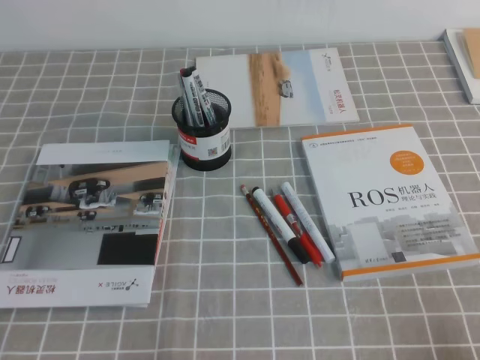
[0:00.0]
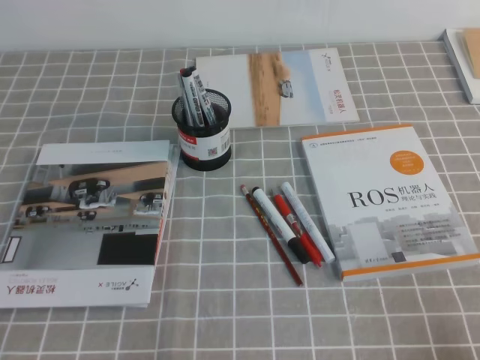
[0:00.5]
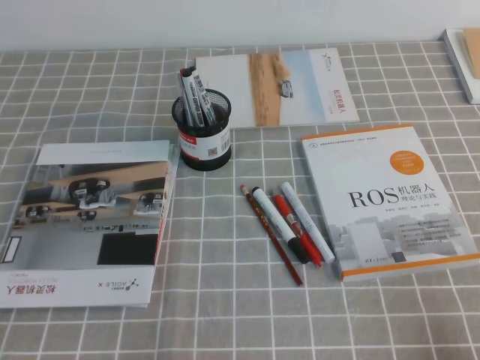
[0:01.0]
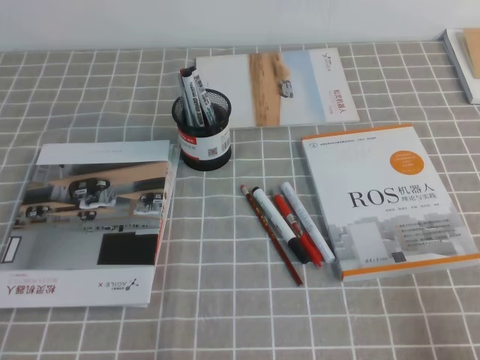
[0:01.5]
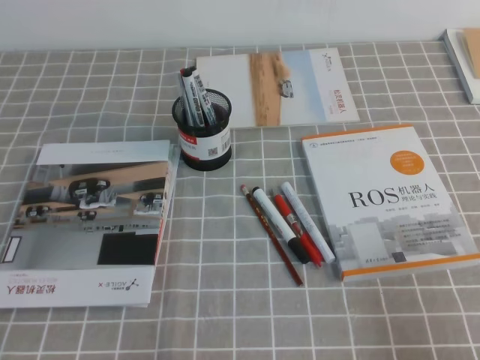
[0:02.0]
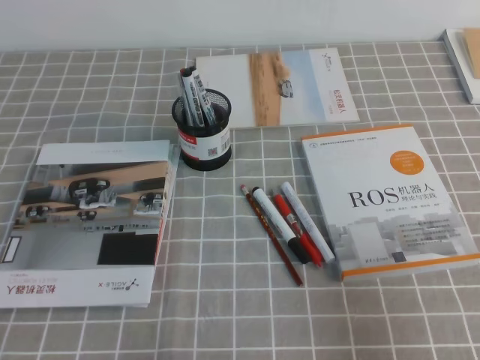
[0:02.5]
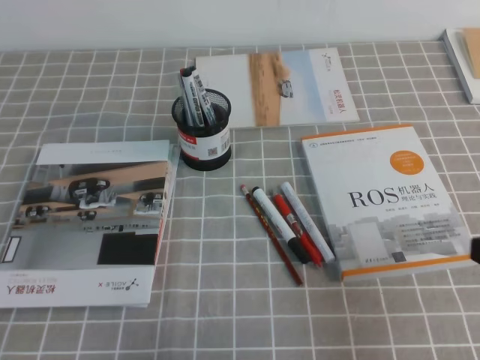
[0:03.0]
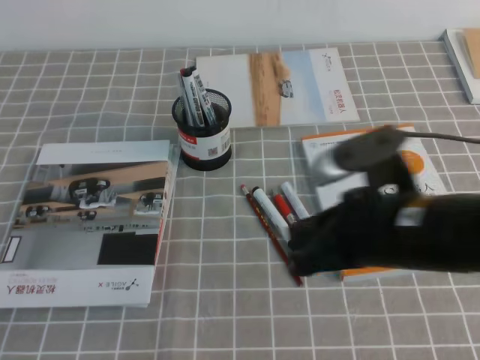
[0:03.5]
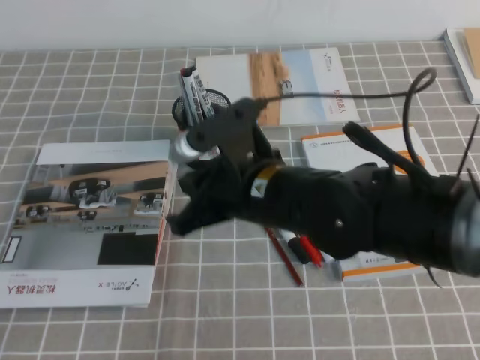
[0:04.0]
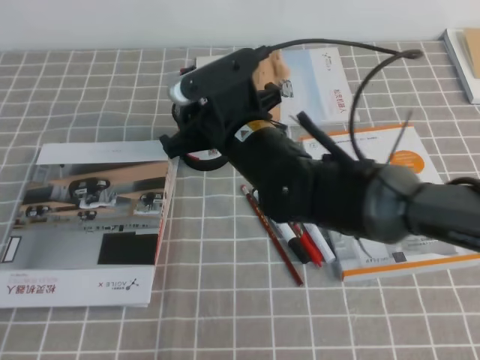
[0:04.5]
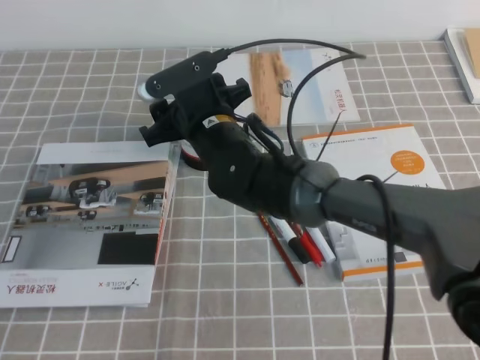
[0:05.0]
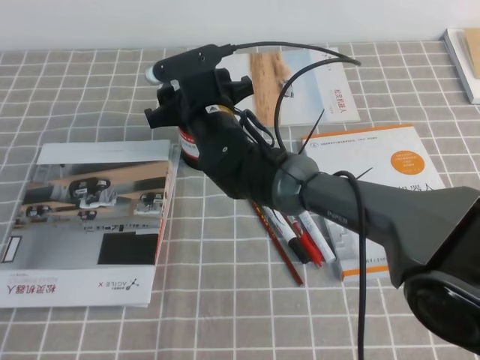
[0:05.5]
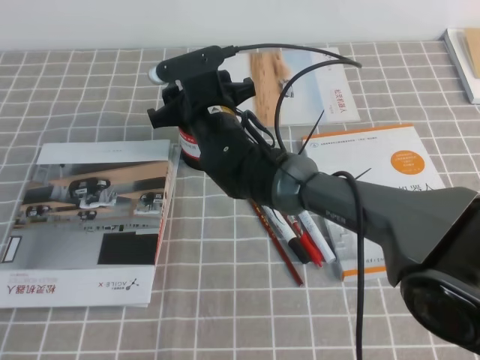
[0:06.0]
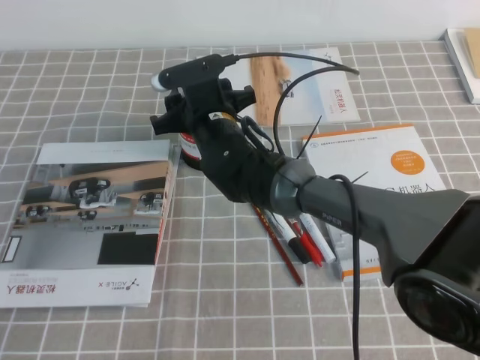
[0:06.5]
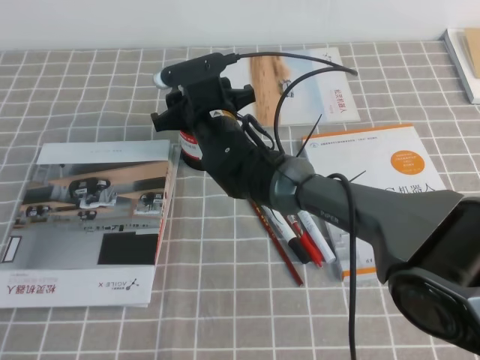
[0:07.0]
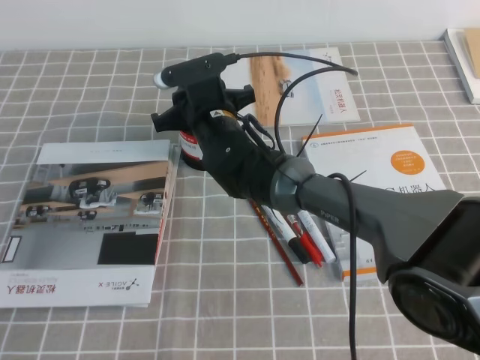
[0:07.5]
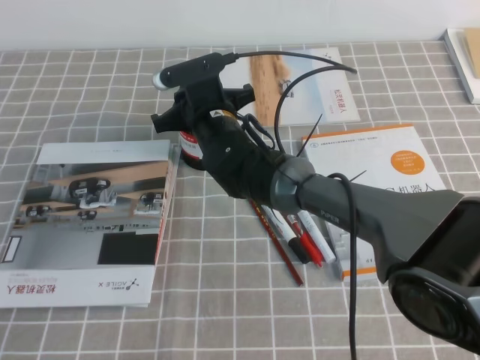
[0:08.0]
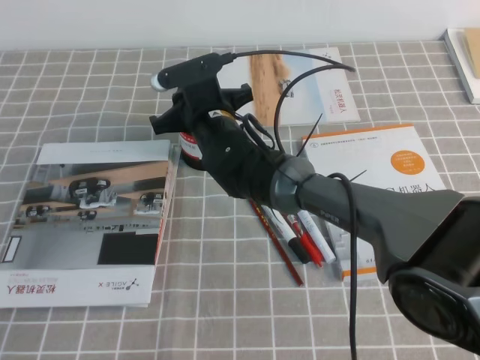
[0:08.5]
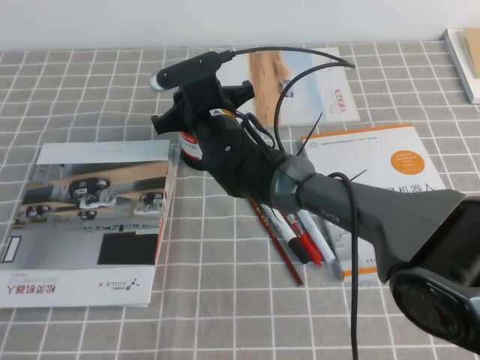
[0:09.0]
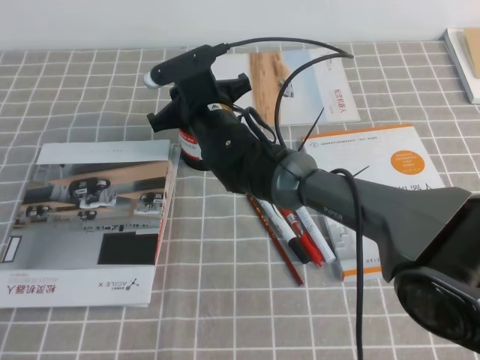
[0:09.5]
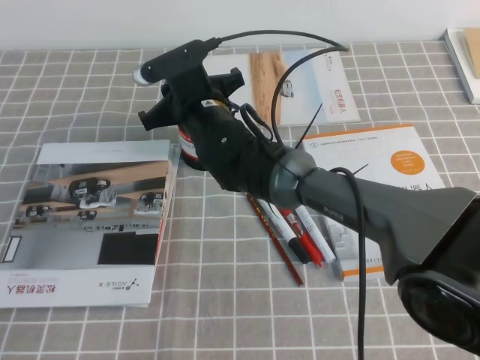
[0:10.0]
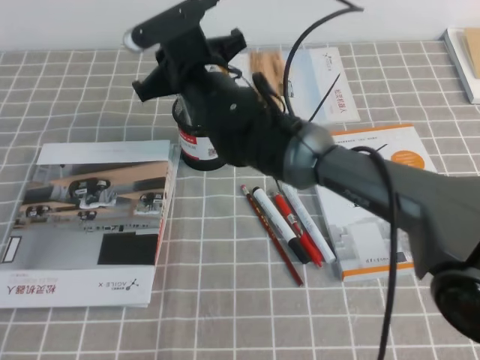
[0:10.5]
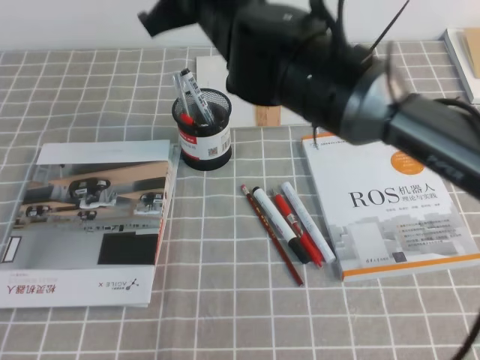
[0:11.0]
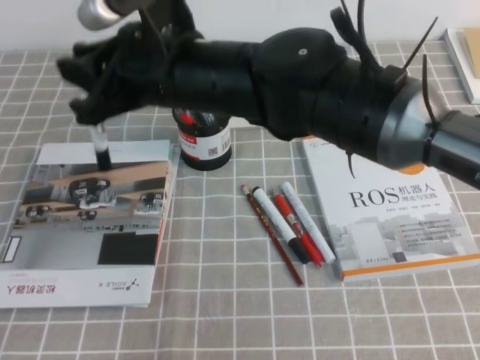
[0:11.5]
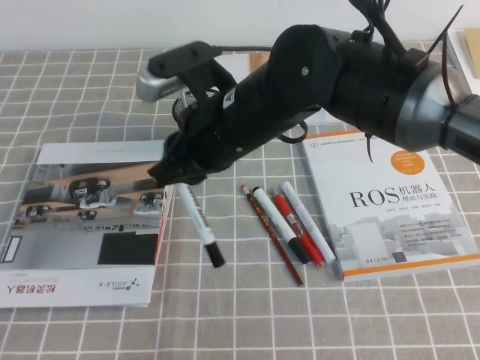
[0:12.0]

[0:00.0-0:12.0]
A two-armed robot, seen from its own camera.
0:02.0 to 0:04.0: The right gripper moves to the left and forward, roughly 35 cm.
0:04.0 to 0:06.0: The right gripper is displaced forward and to the left by some 20 cm, and opens up.
0:06.0 to 0:08.0: The right gripper closes.
0:08.0 to 0:10.0: The grippers stay close to where they were, moving slightly.
0:10.0 to 0:12.0: The right gripper shifts some 15 cm backward, upward and to the right.

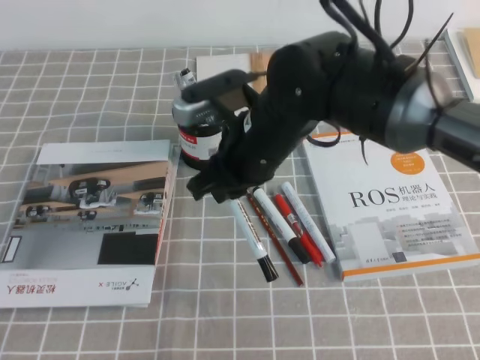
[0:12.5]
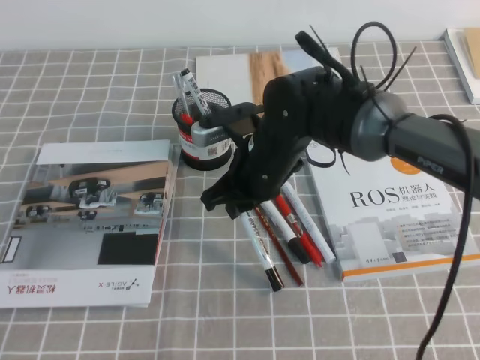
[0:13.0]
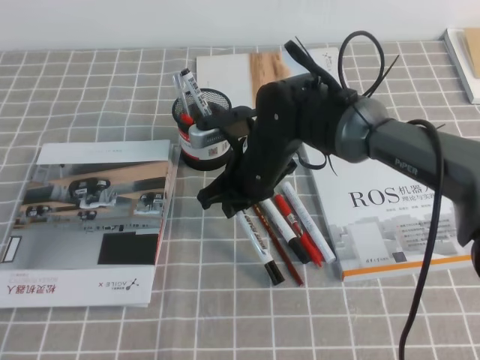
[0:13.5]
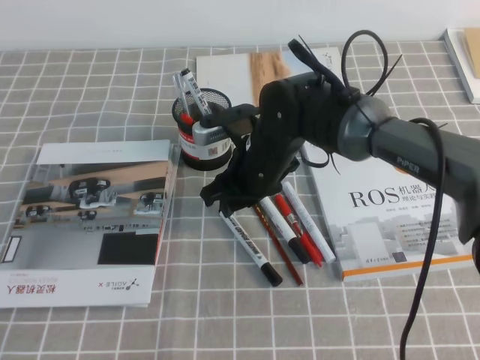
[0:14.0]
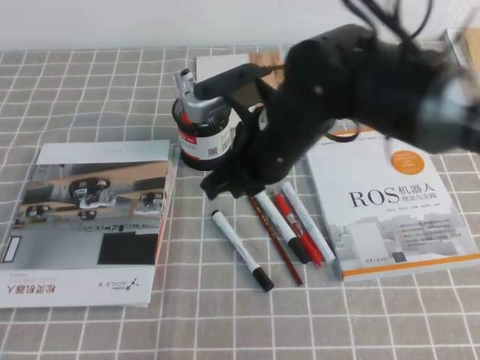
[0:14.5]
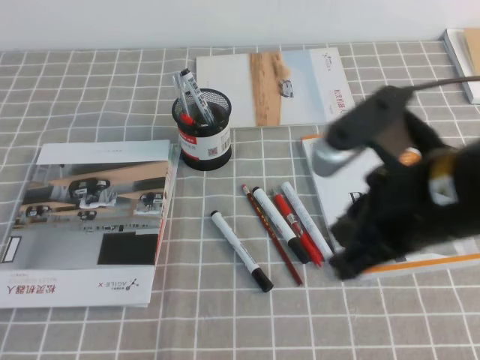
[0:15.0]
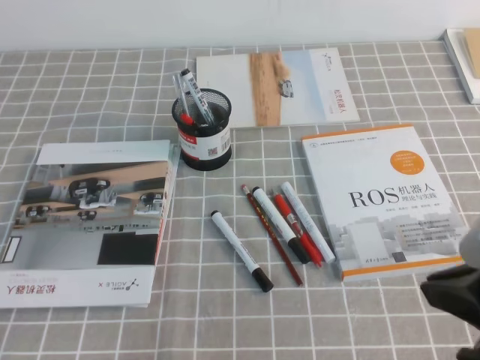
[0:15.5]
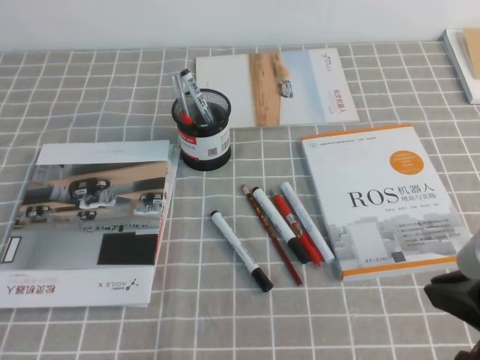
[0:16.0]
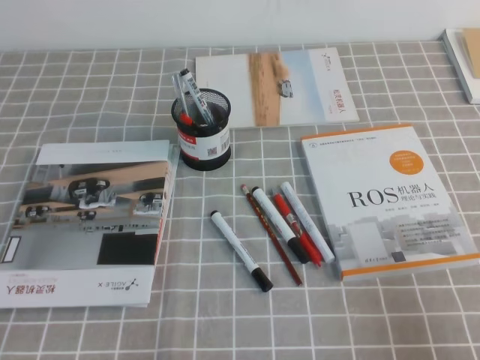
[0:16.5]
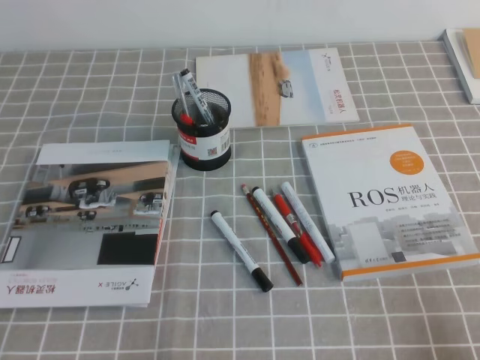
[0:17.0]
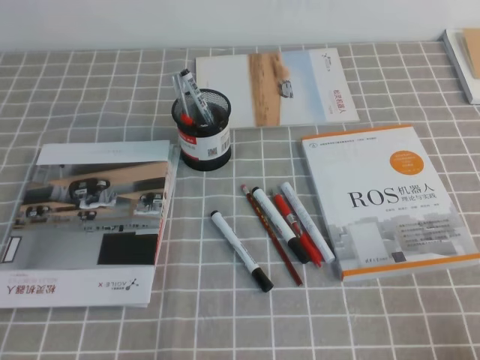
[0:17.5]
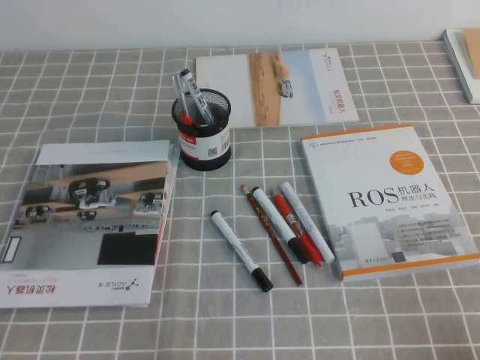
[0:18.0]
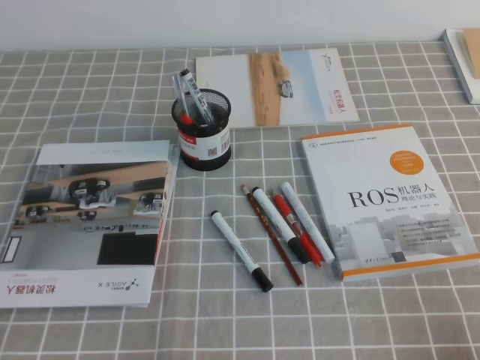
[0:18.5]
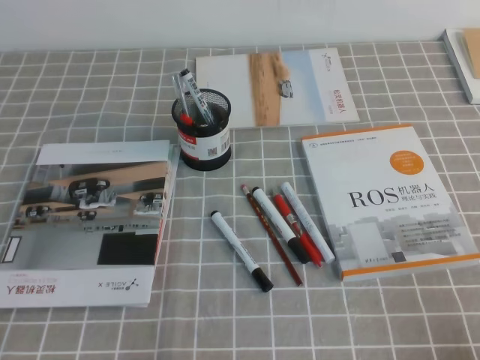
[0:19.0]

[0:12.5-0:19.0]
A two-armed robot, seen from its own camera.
Step, 0:12.5 to 0:19.0: Pick up the pen from the pen holder.
0:12.5 to 0:14.5: The right gripper goes downward and returns, approximately 10 cm each way, and opens and closes again.
0:14.5 to 0:17.0: The right gripper travels to the right and backward by approximately 35 cm.

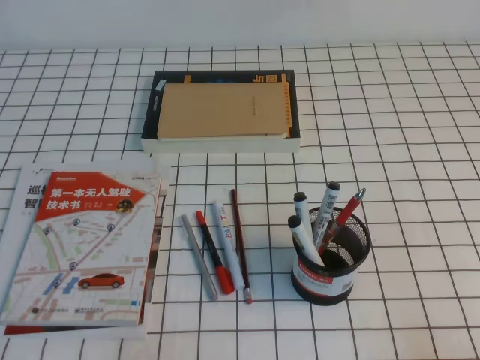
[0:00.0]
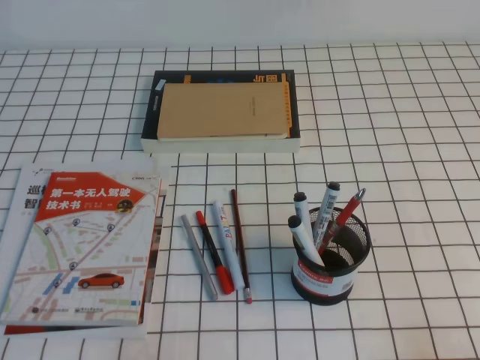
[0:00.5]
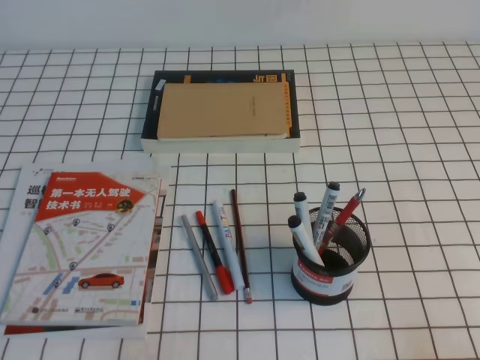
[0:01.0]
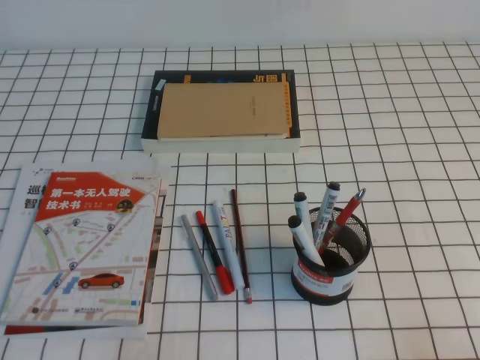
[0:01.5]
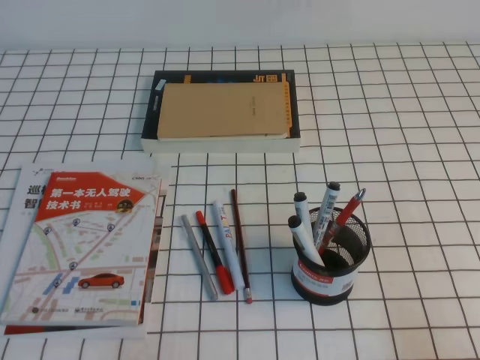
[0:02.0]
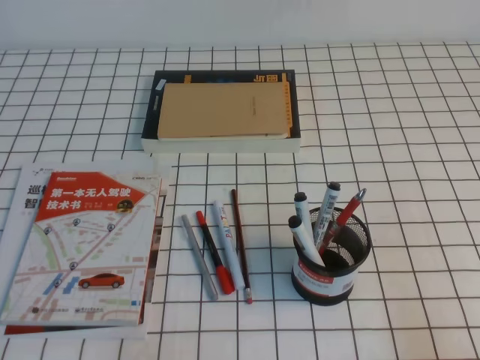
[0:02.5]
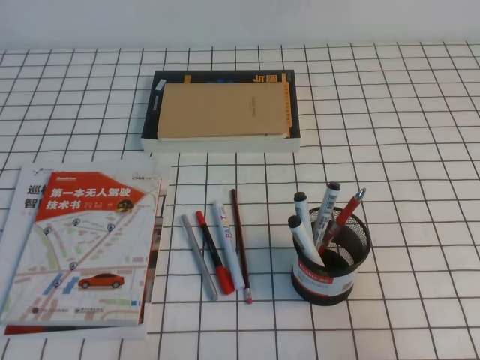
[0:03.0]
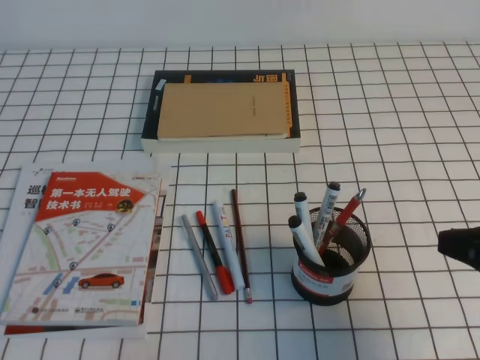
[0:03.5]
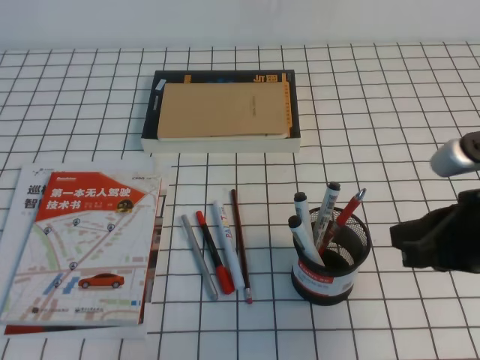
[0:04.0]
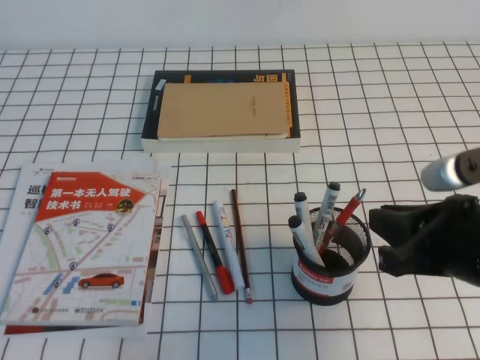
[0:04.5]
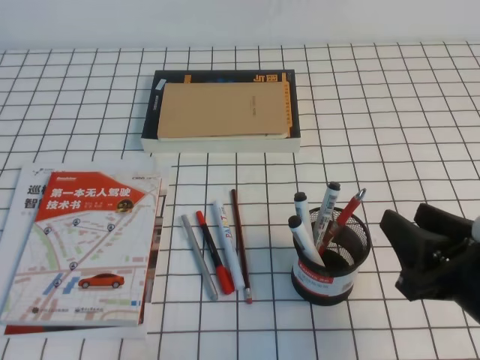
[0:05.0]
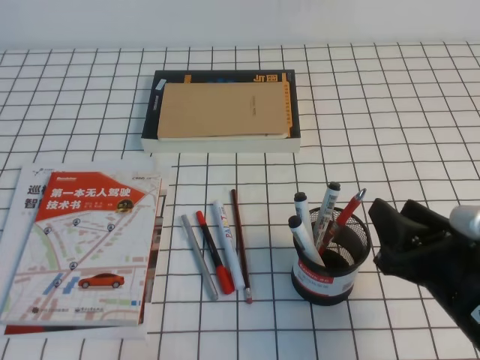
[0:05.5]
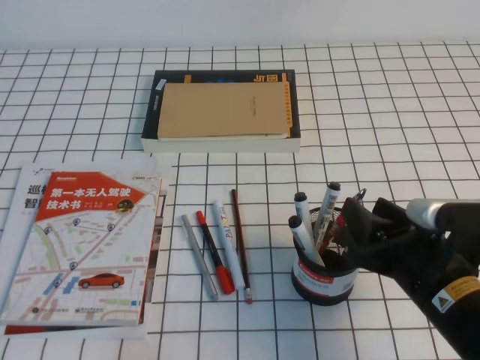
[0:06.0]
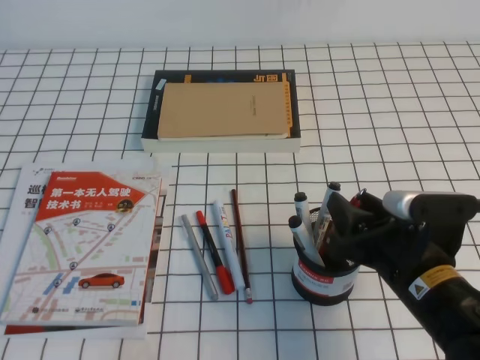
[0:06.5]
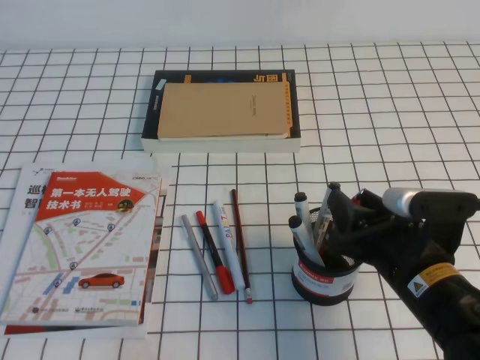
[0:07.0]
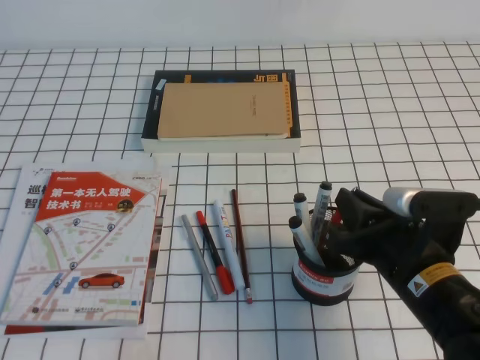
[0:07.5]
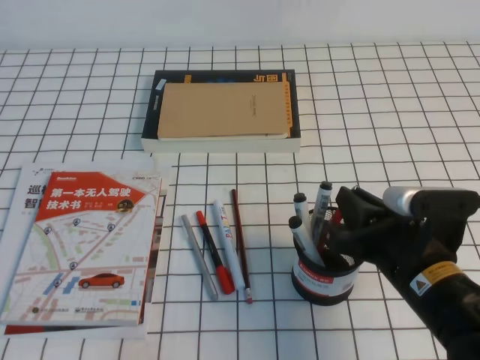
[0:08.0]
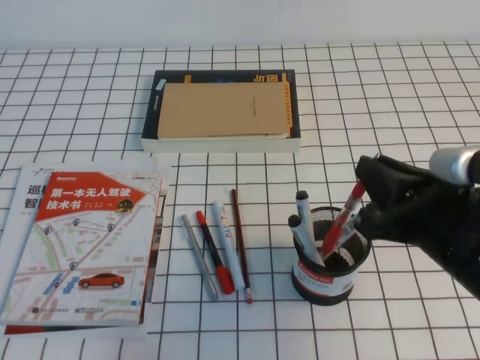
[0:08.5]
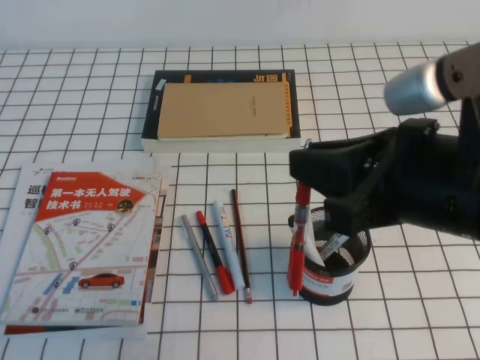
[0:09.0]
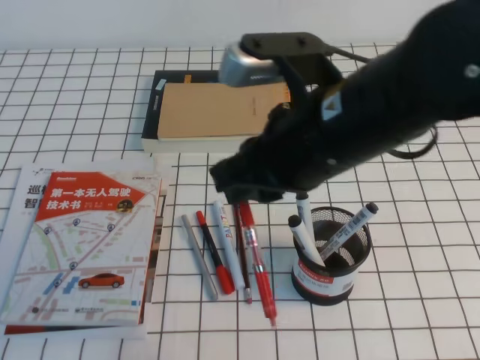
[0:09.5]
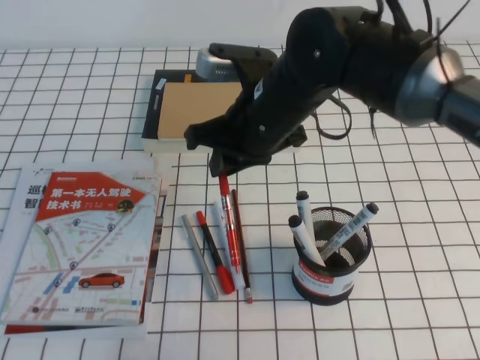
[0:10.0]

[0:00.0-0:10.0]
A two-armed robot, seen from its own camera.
0:02.0 to 0:04.0: The right gripper is displaced forward, to the left and upward by approximately 20 cm.
0:04.0 to 0:06.0: The right gripper is displaced downward and to the left by about 10 cm, and opens up.
0:06.0 to 0:08.0: The right gripper closes up.
0:08.0 to 0:10.0: The right gripper travels to the left, forward and upward by roughly 20 cm.
